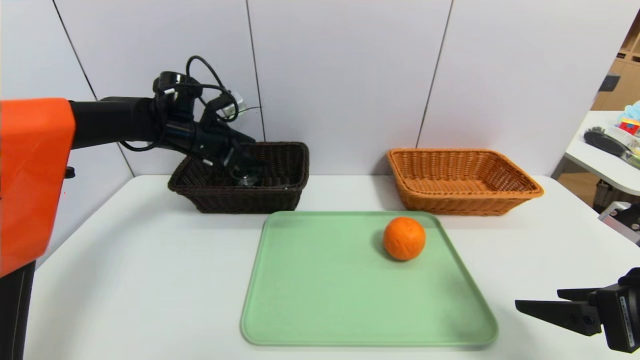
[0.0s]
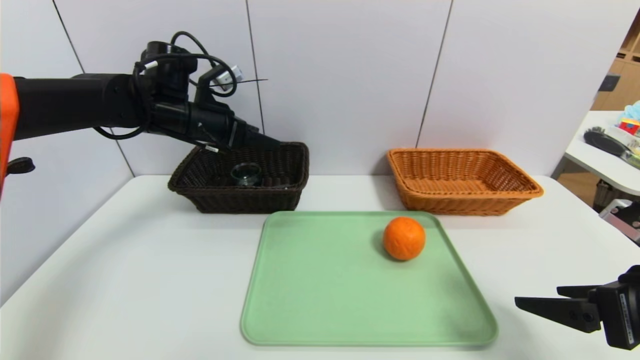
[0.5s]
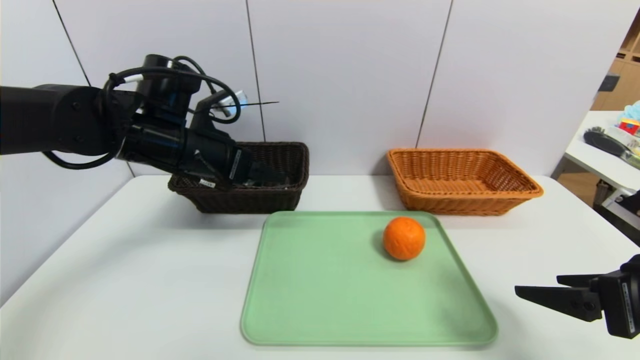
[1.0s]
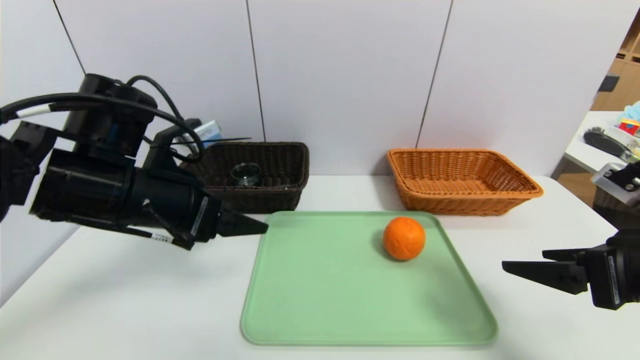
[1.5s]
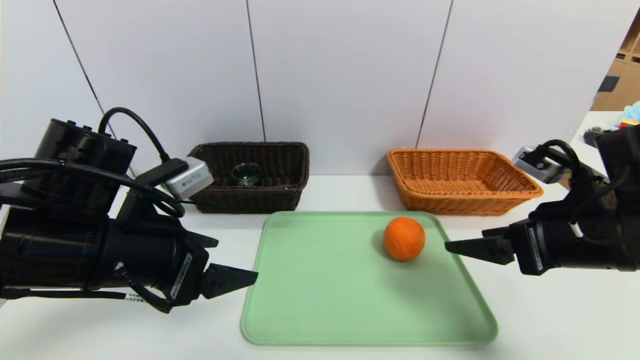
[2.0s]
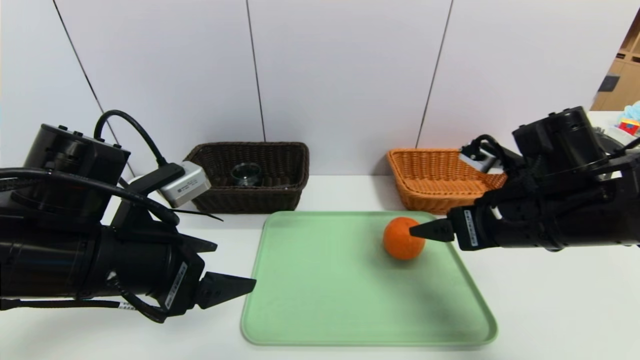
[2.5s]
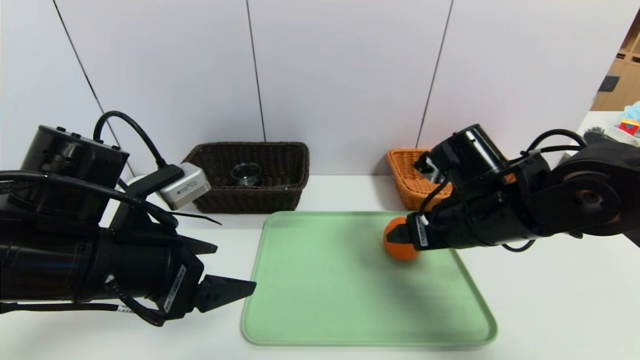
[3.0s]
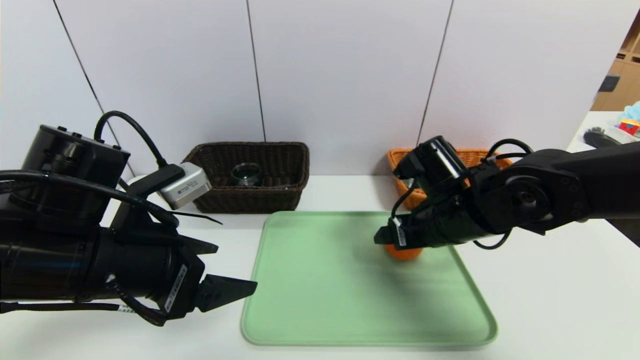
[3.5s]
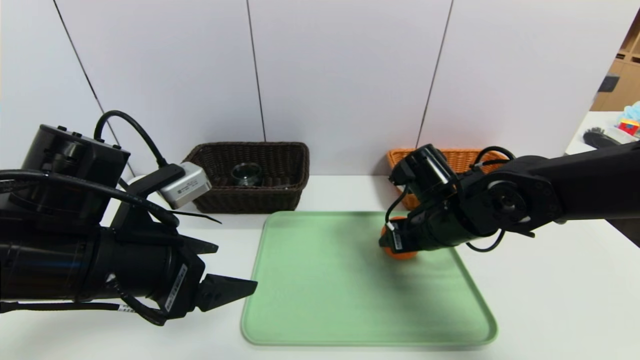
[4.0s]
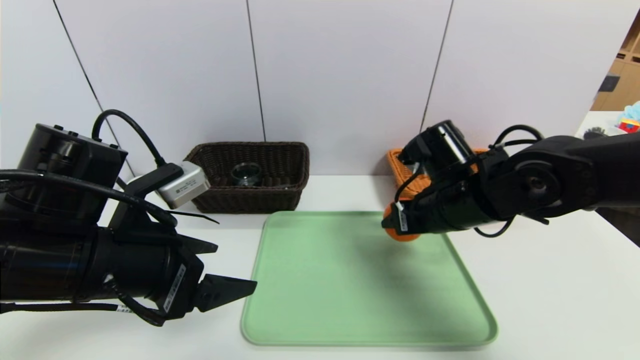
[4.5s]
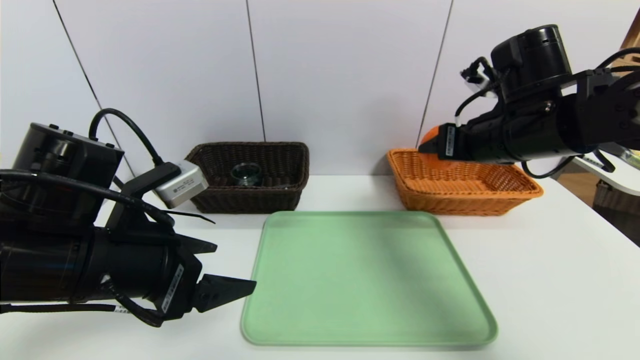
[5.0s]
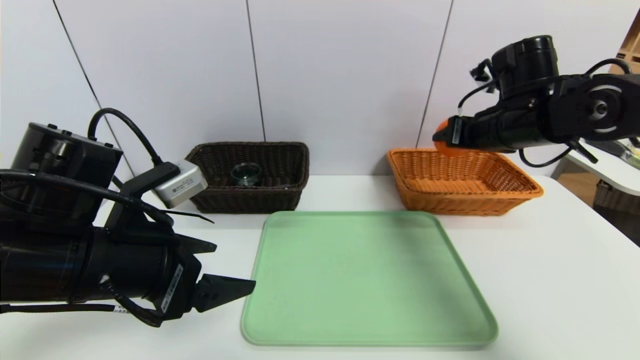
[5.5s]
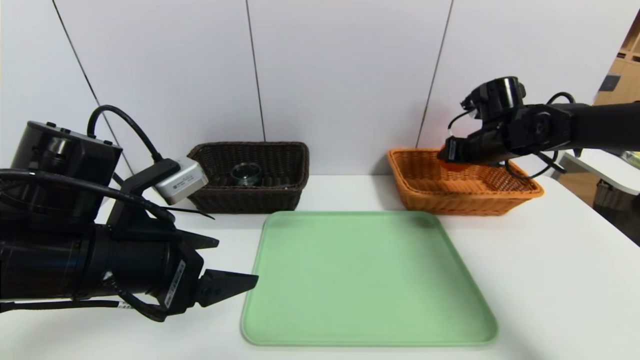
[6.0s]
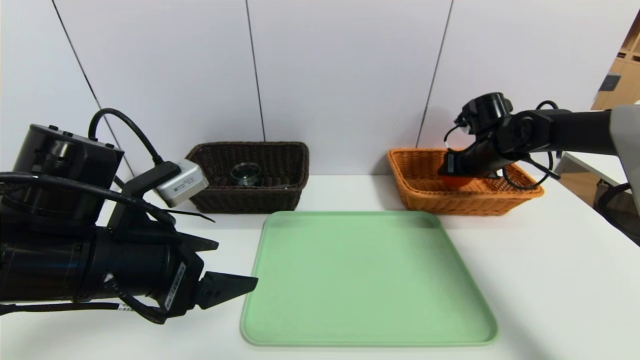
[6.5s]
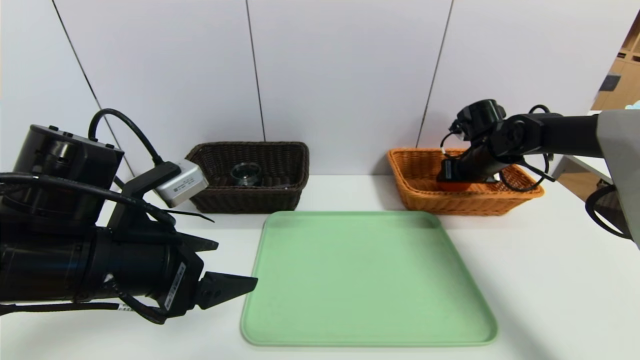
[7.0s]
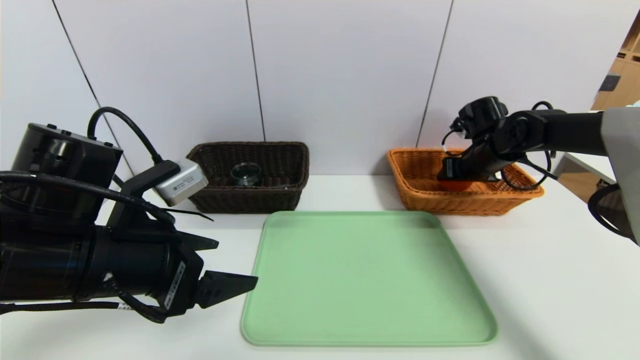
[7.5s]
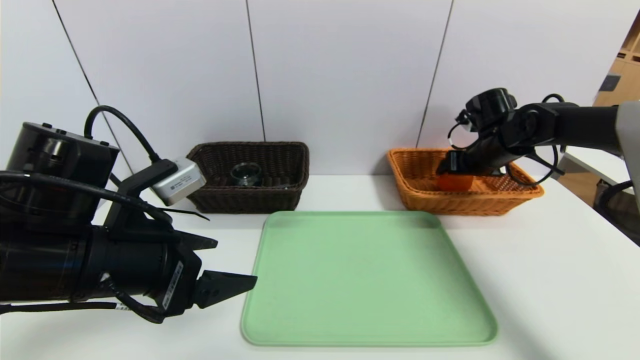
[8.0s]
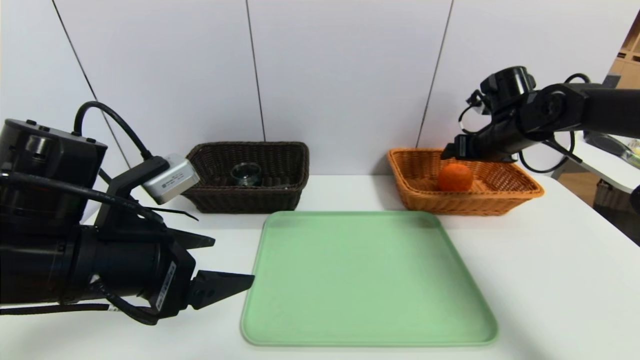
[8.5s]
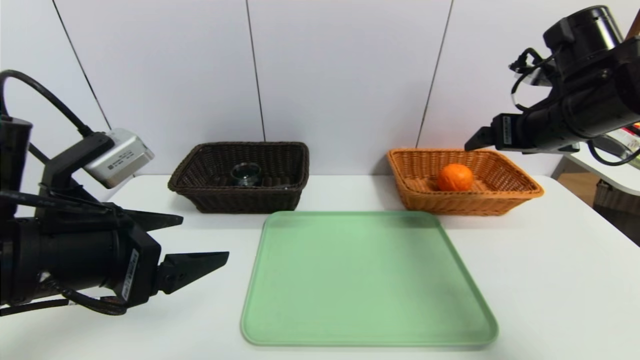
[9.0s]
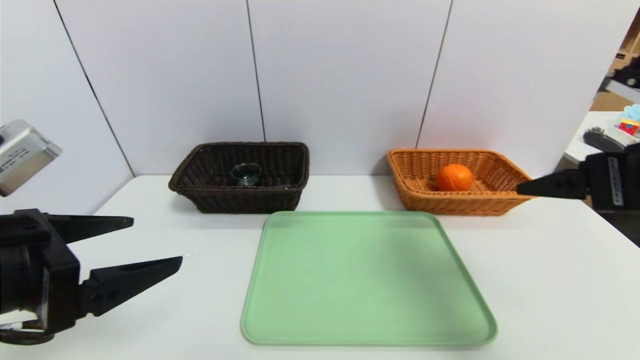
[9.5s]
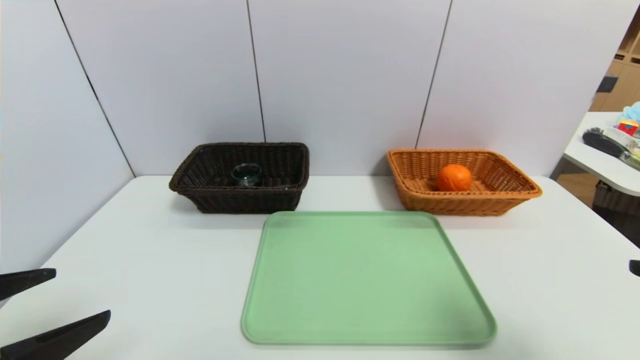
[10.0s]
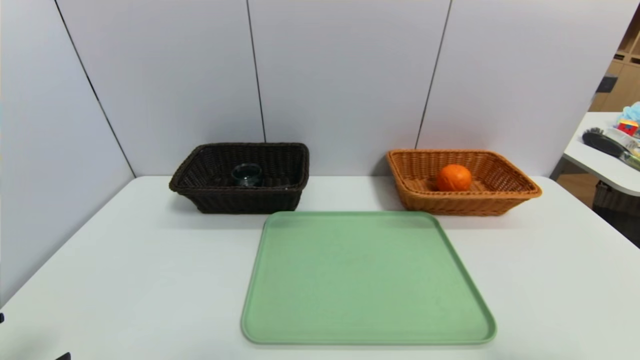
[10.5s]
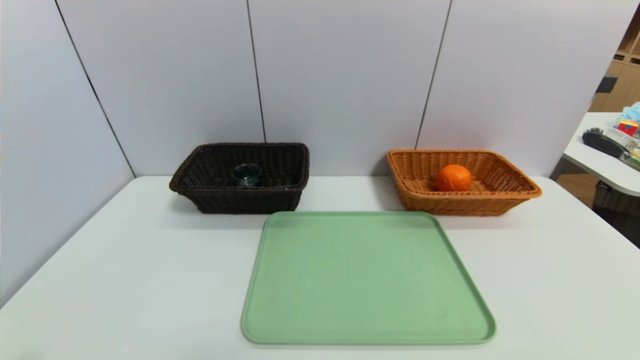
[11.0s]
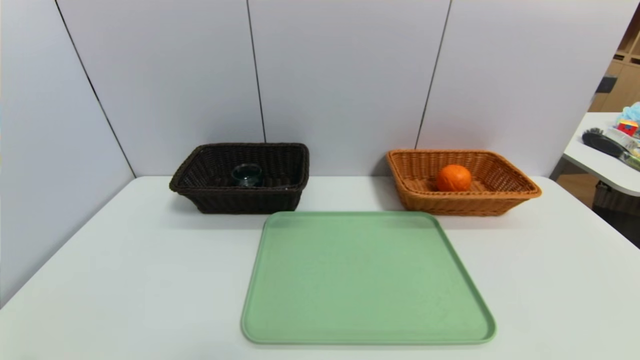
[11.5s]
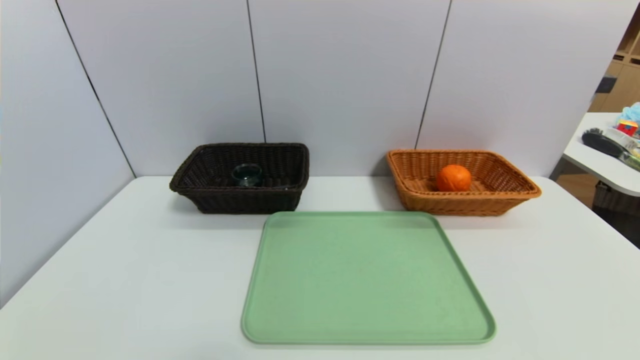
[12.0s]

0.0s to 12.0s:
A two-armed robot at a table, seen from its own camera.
Task of the whole recording: place the food in the right basket with the right gripper, and place the non food items in the left basket with the left gripper.
Step, 0.0s to 8.0s: Grasp the orange and put it in the right basket.
0.0s to 2.0s: The right gripper heads forward and to the left, covering roughly 10 cm. Meanwhile the left gripper heads backward, covering some 25 cm.
2.0s to 4.0s: The right gripper moves to the left, forward and downward, approximately 15 cm, and closes its fingers.
4.0s to 6.0s: The right gripper heads to the right and forward, covering approximately 20 cm.
6.0s to 8.0s: The right gripper opens up.
8.0s to 10.0s: The right gripper goes approximately 40 cm backward. Meanwhile the left gripper heads backward and to the left, covering some 15 cm.
10.0s to 12.0s: The left gripper goes approximately 15 cm downward and backward. The right gripper heads backward and downward, covering some 15 cm.

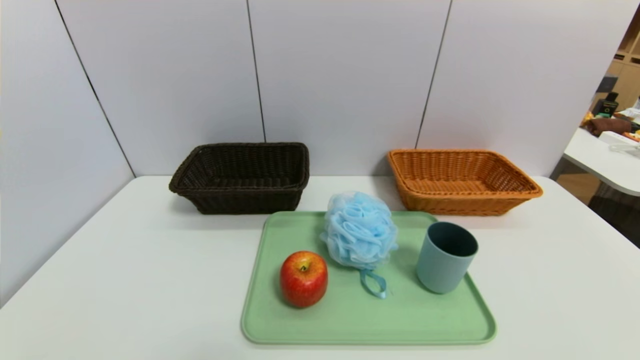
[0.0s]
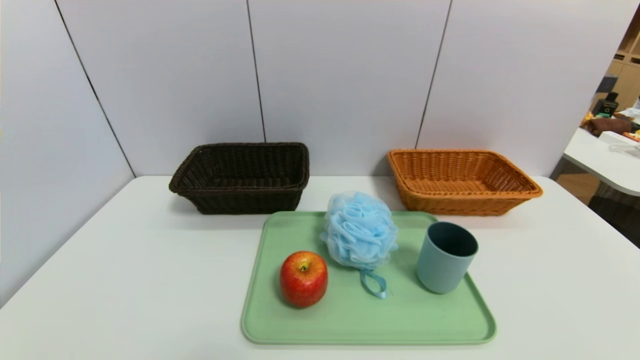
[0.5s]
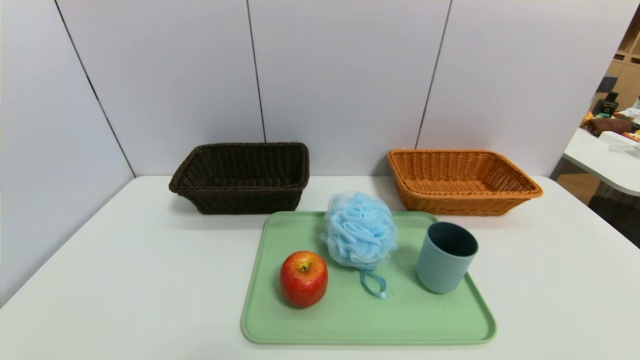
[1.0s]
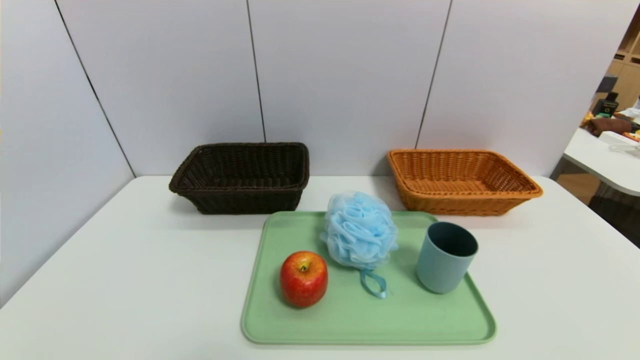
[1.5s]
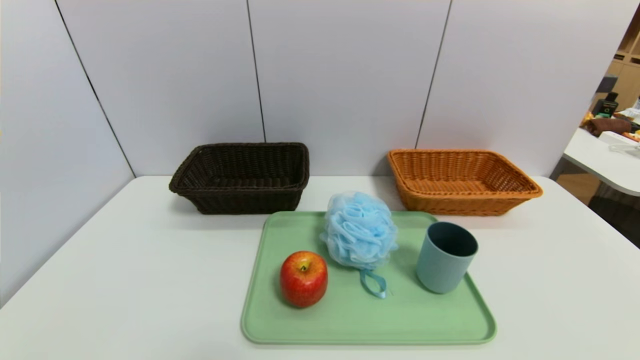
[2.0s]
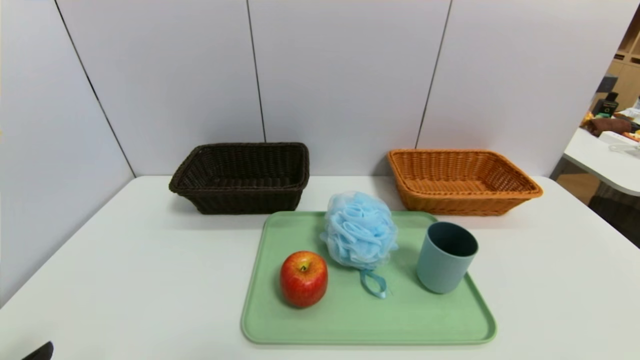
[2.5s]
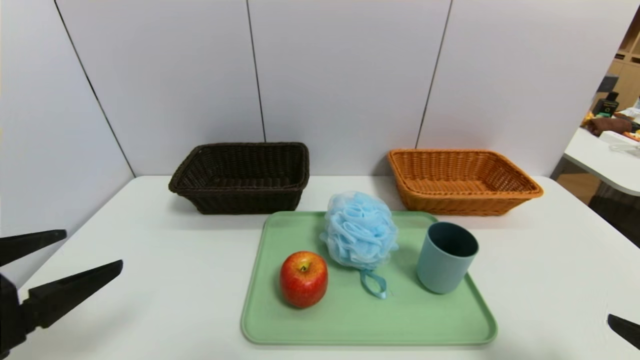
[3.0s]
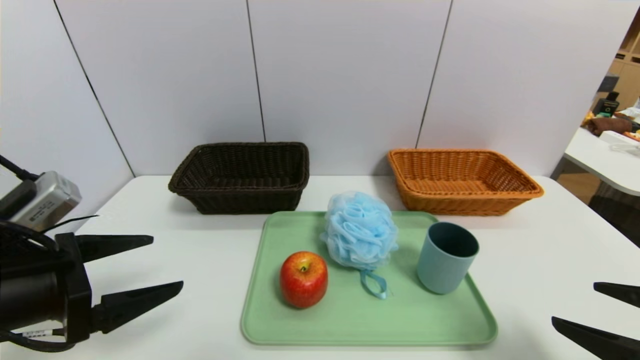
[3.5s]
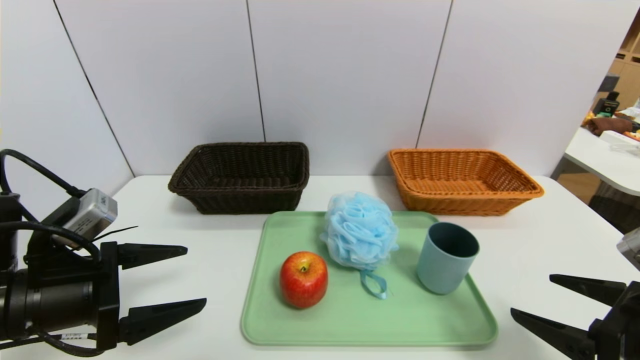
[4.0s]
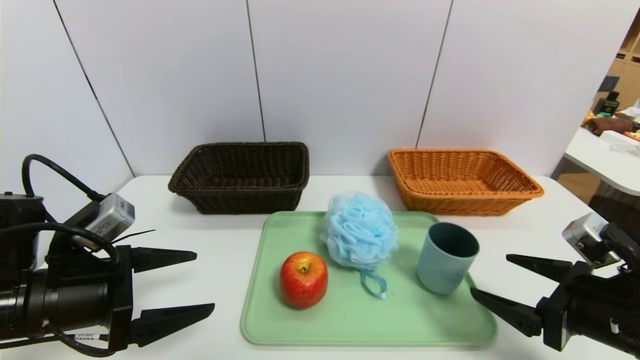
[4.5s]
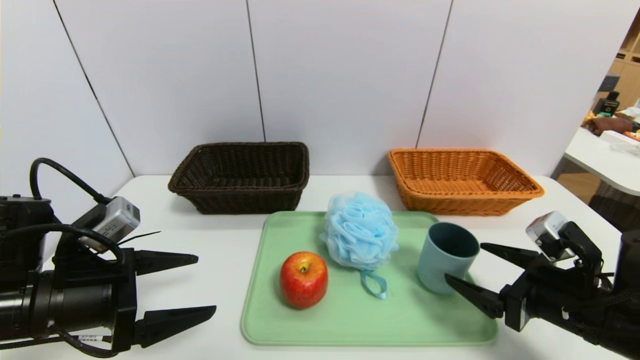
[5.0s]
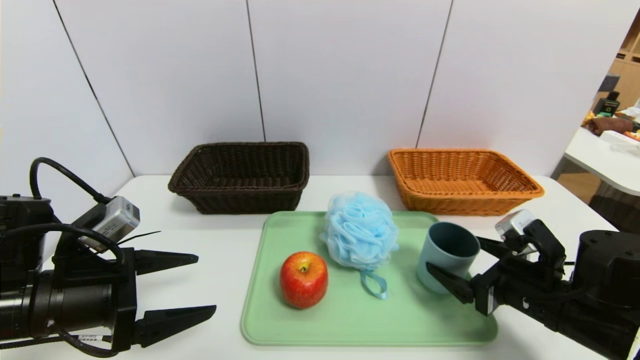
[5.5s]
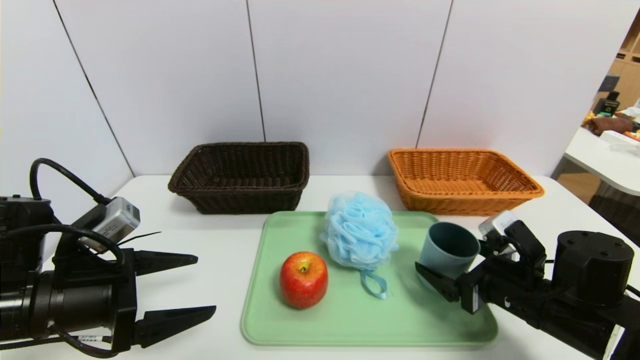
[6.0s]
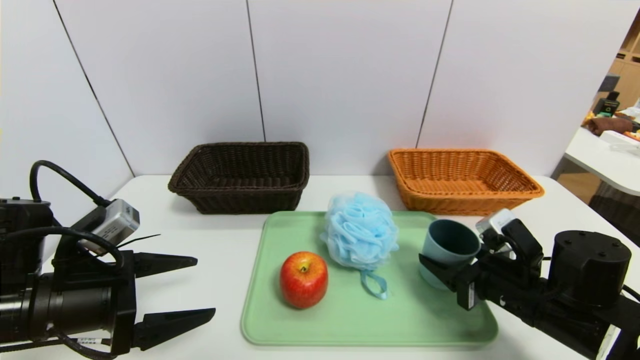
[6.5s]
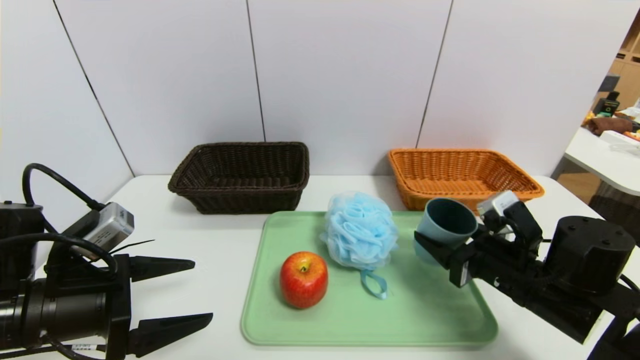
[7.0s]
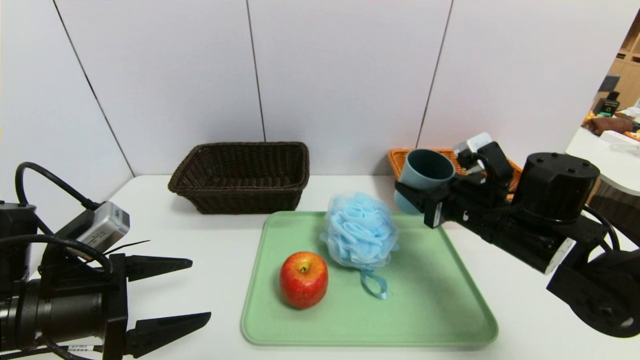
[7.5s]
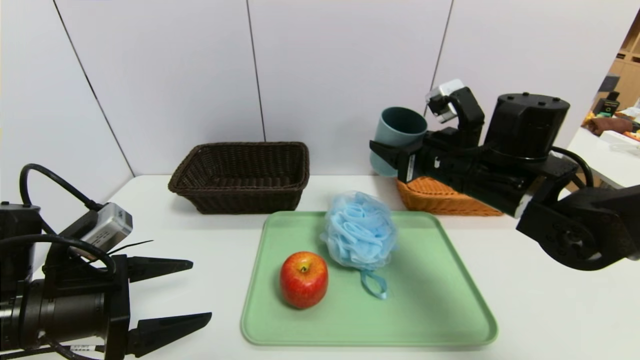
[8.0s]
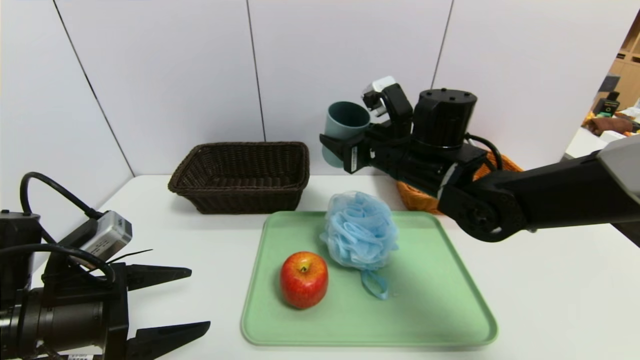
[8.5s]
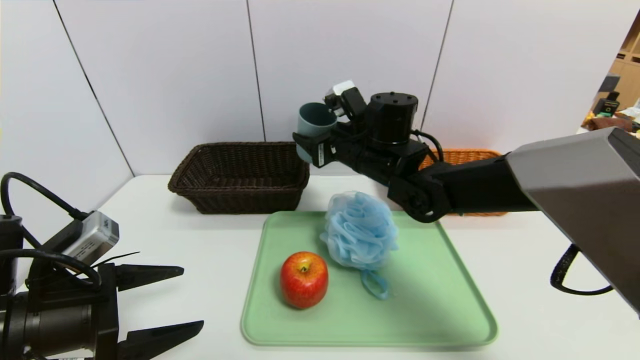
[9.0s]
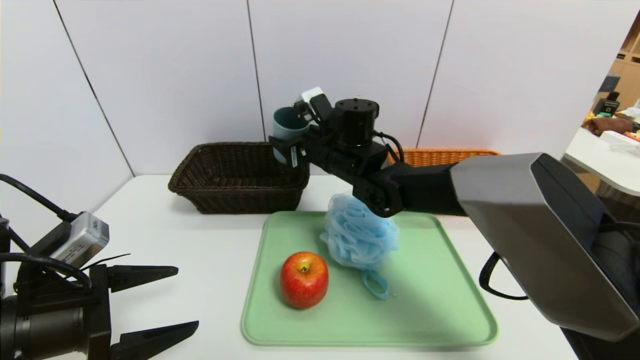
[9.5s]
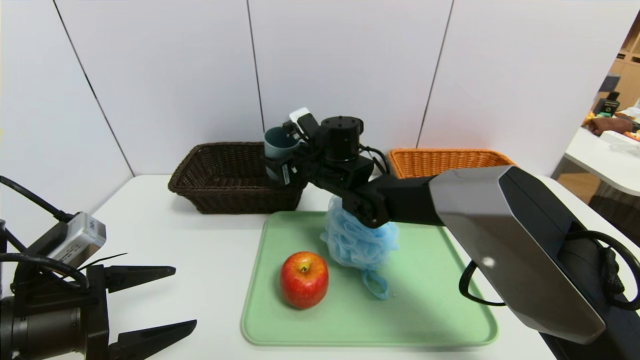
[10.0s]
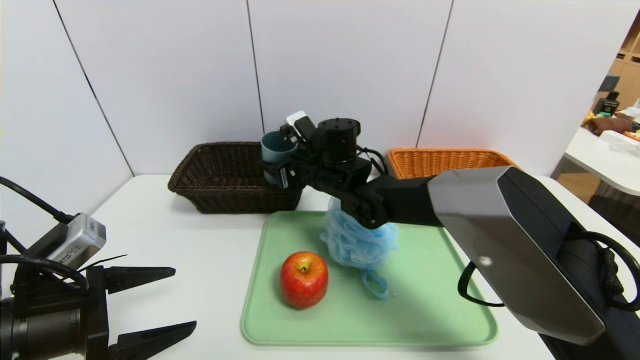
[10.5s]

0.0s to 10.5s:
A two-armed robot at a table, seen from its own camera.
Task of the whole recording: place the food in the right basket with the right gripper, and place the non food items in the left basket with the left gripper.
2.0s to 4.0s: Both grippers travel together forward, approximately 20 cm.
4.0s to 6.5s: The right gripper is displaced forward, to the left and downward by some 15 cm, and closes its fingers.
6.5s to 8.5s: The right gripper heads to the left, forward and upward, covering some 25 cm.
8.5s to 10.5s: The right gripper travels to the left, forward and downward by approximately 15 cm.
